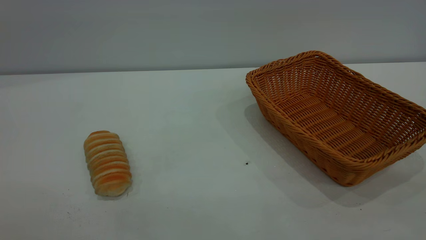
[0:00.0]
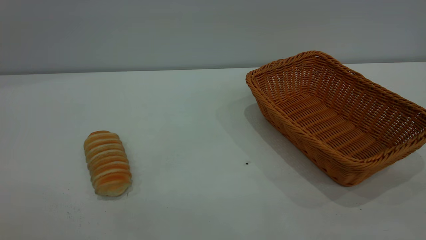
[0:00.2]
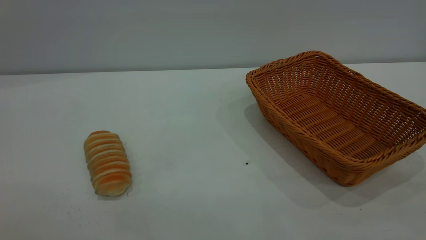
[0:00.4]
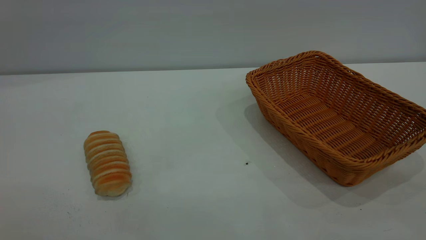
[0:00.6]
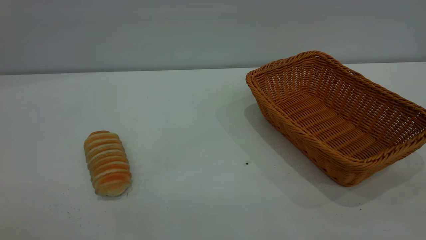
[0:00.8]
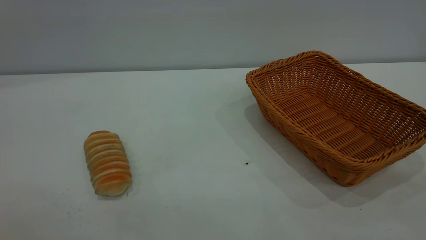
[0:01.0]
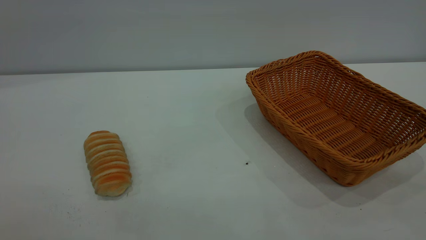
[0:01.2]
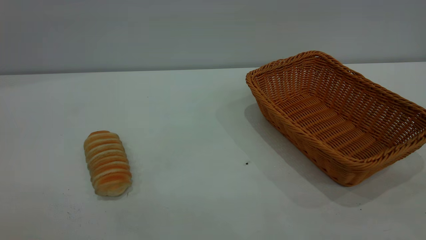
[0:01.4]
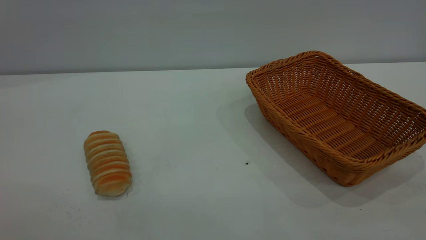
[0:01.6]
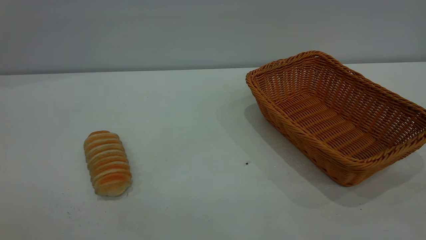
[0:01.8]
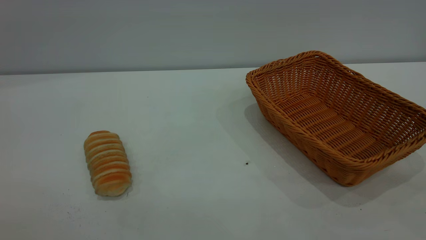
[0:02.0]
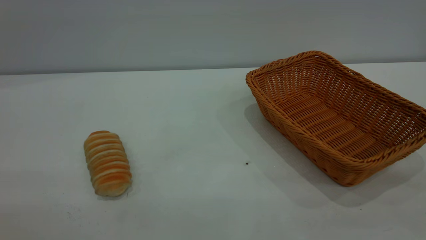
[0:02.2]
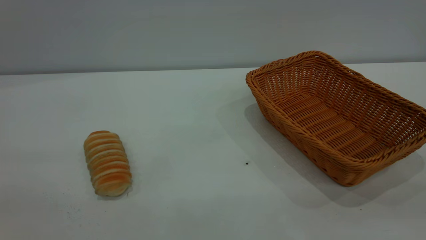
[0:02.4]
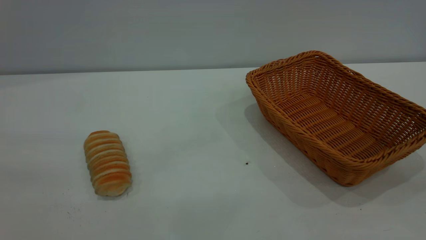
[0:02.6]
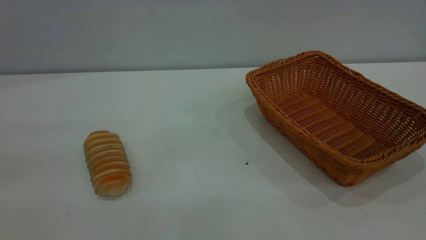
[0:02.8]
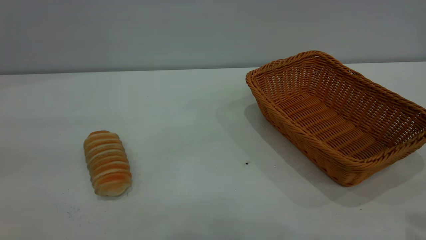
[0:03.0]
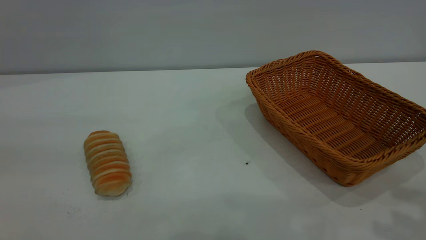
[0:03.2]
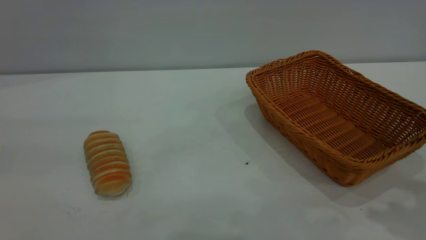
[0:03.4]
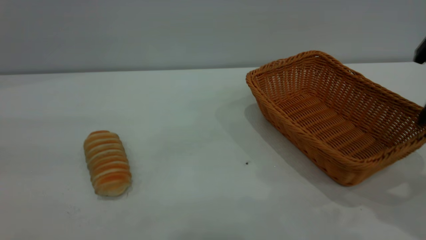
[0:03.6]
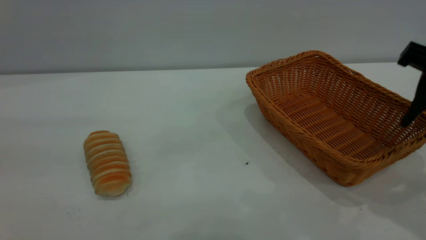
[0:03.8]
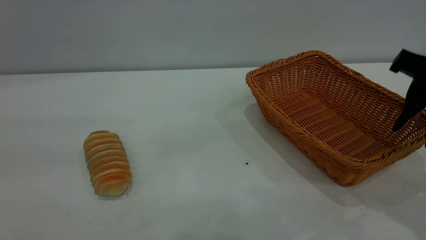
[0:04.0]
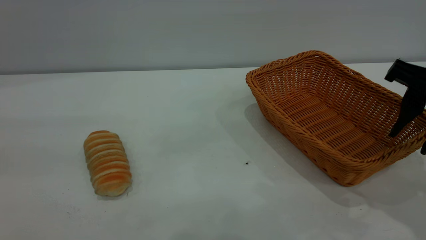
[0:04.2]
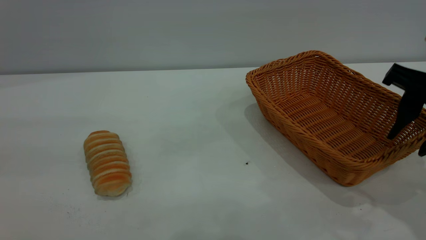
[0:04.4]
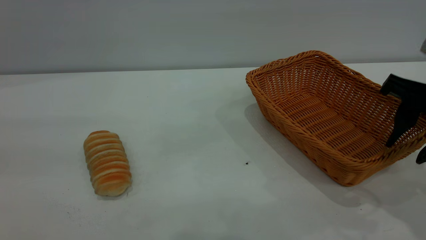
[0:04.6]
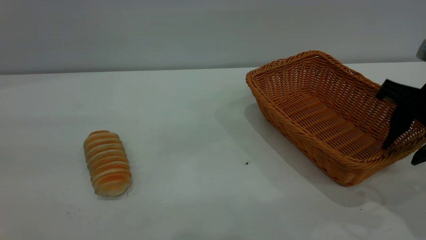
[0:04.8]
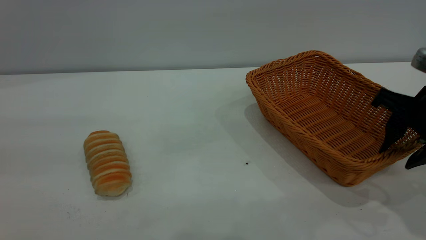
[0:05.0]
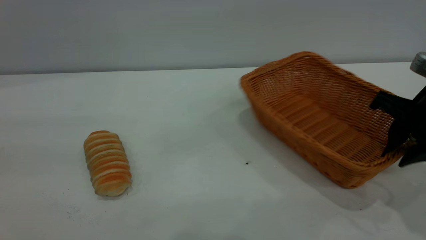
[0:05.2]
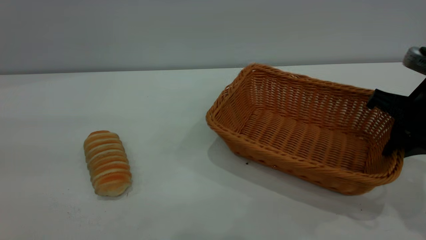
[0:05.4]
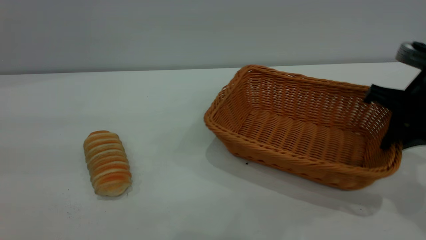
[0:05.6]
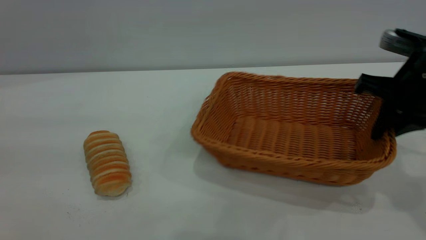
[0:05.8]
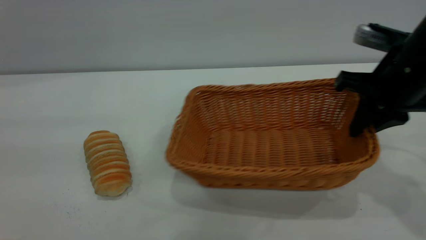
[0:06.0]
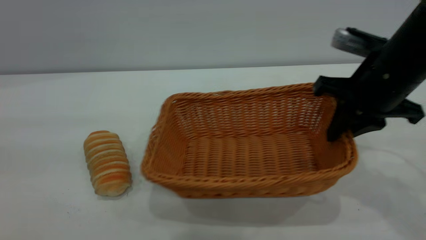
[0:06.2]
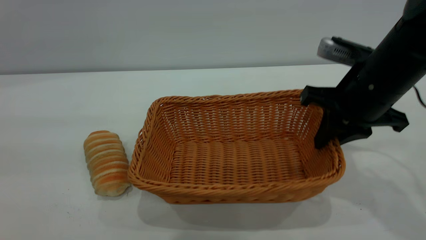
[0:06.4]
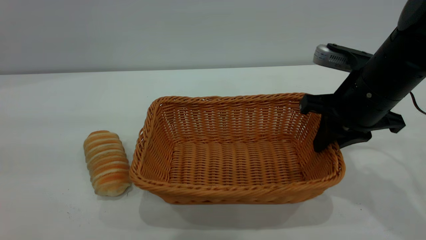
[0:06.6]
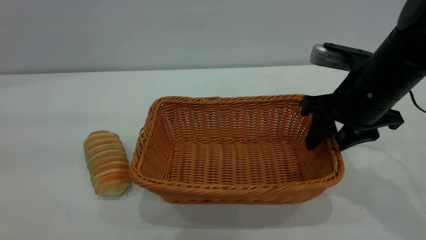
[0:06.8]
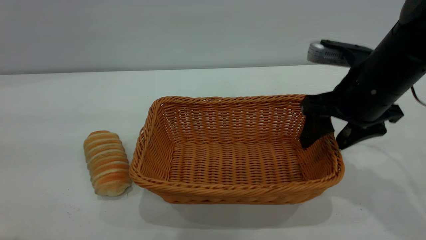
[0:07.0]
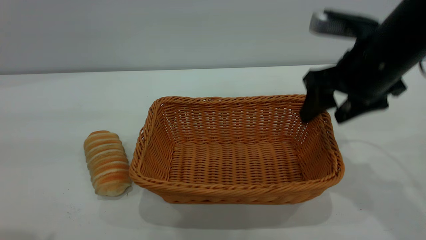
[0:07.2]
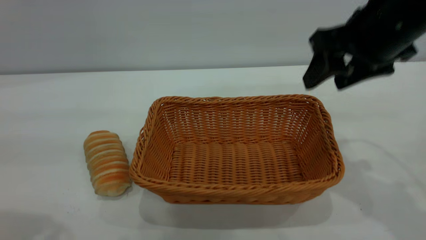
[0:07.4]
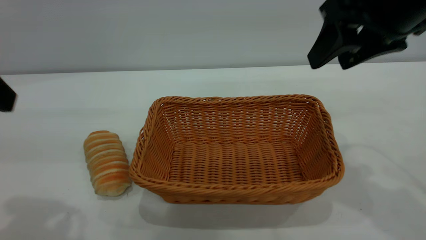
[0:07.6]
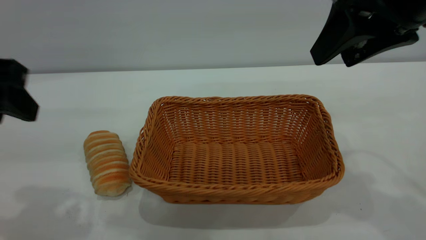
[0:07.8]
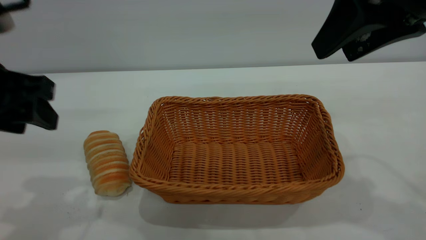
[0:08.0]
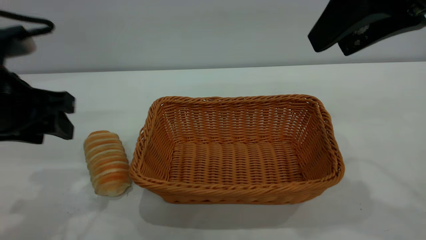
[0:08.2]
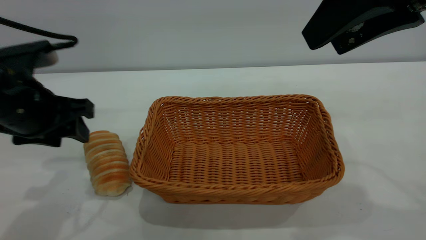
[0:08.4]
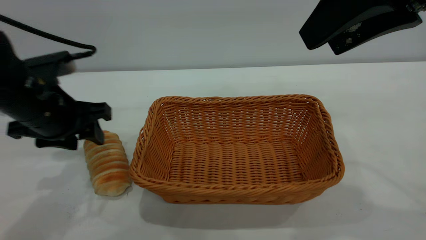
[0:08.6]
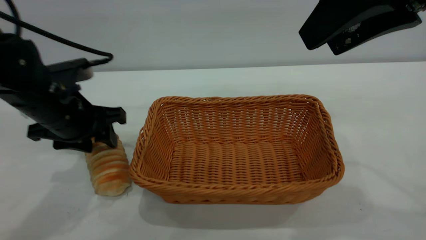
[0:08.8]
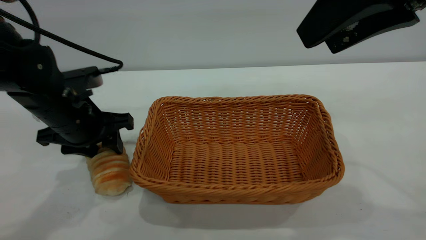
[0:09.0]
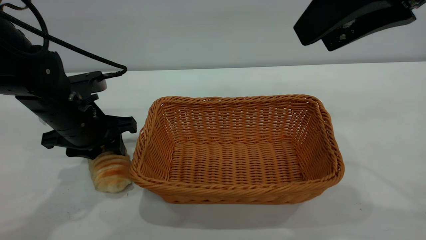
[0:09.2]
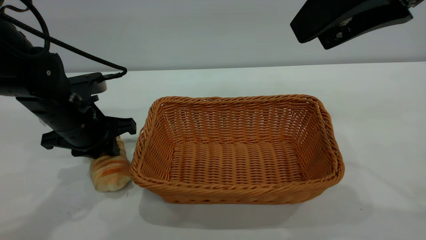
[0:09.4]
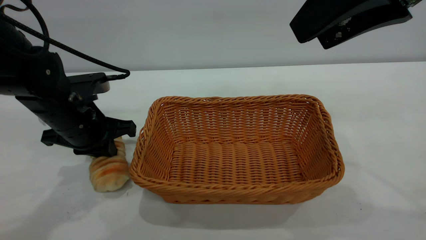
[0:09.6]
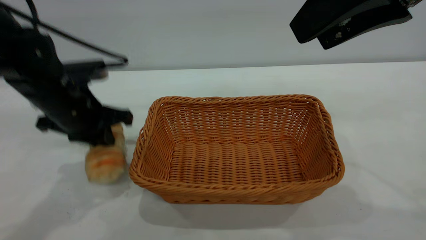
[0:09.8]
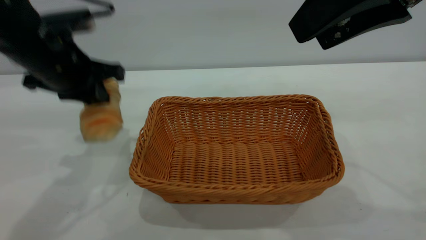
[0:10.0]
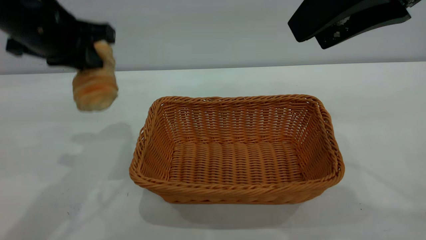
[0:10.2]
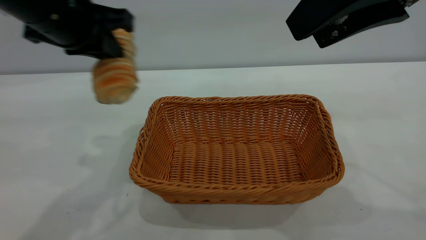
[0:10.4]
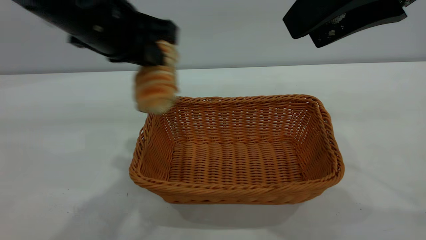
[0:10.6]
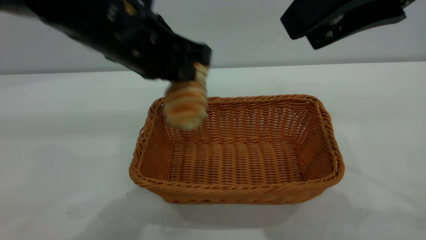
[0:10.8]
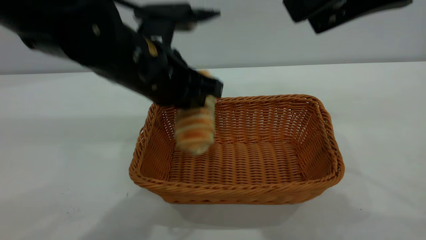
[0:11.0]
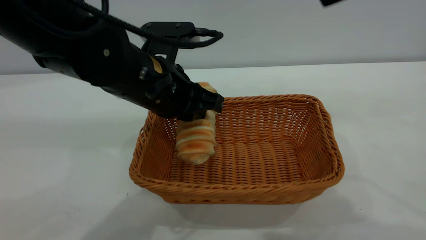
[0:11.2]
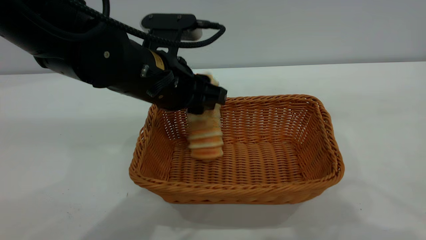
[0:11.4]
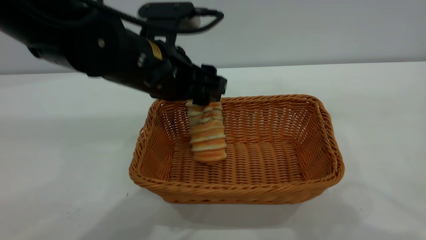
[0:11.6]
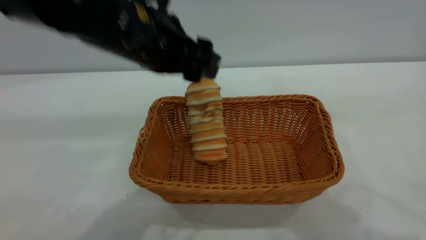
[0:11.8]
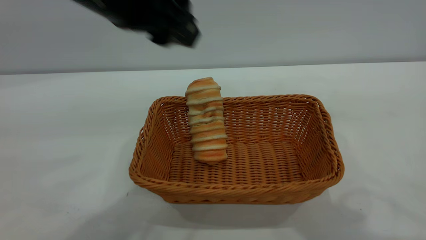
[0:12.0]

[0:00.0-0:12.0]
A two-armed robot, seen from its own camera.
Task of the whole recording: One hand grasps the yellow basket and places it in the middle of the table, while the other hand picks up the long bread and puts it into the yellow basket.
Step, 0:00.0 to 0:07.2: Move the basket to the center of view.
Step, 0:10.2 to 0:11.8: place the bread into the basket.
0:00.0 to 0:01.6: Both grippers stay put.
0:03.0 to 0:04.4: The right gripper shifts approximately 15 cm downward and forward.
0:04.4 to 0:06.0: The right gripper goes roughly 5 cm forward, and closes its fingers.
0:06.0 to 0:07.6: The left gripper heads forward and downward, covering some 10 cm. Meanwhile the right gripper is displaced upward by about 10 cm, and opens its fingers.
0:07.6 to 0:09.0: The left gripper travels downward and forward by some 20 cm. Meanwhile the right gripper shifts by approximately 5 cm.
0:09.0 to 0:10.4: The left gripper travels upward by approximately 15 cm, and closes.
0:10.4 to 0:12.0: The left gripper heads to the right, covering roughly 5 cm, moves approximately 10 cm downward and comes back, and opens. Meanwhile the right gripper travels upward and backward by roughly 10 cm.

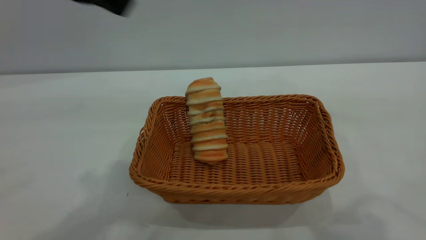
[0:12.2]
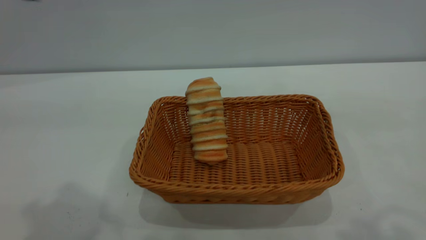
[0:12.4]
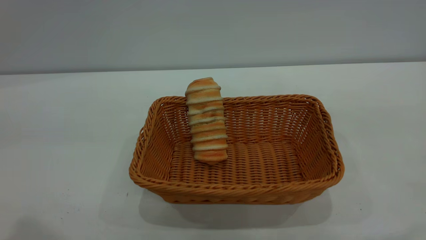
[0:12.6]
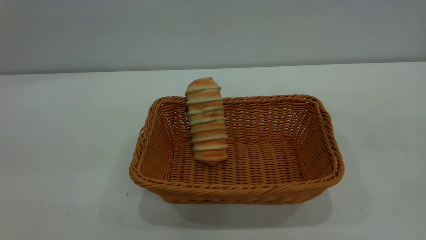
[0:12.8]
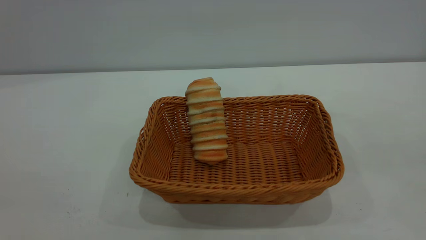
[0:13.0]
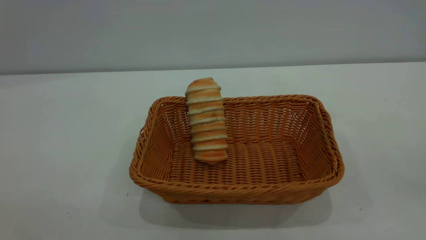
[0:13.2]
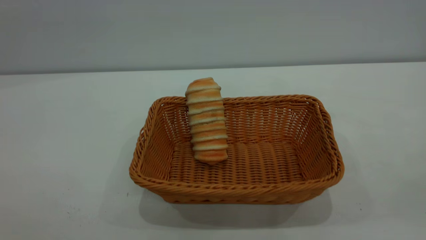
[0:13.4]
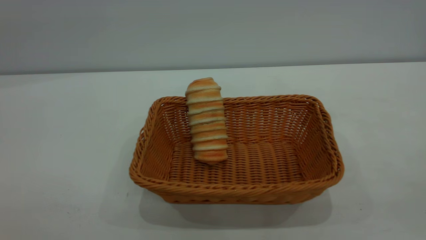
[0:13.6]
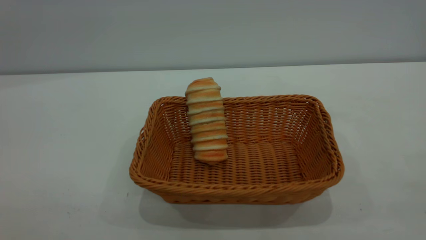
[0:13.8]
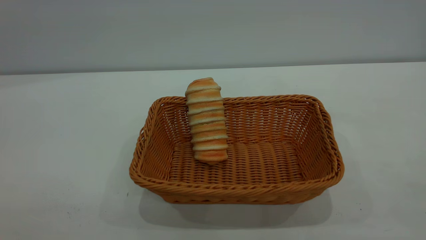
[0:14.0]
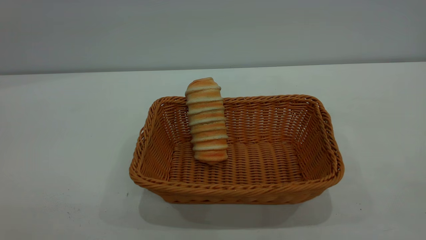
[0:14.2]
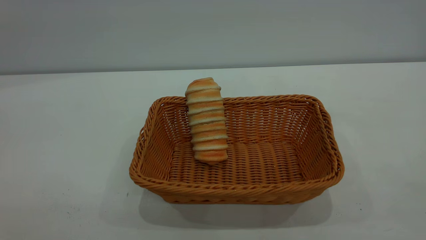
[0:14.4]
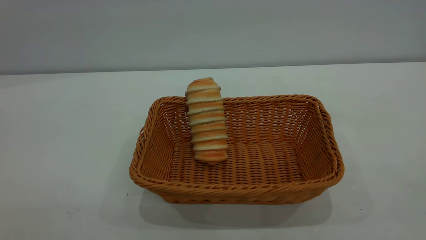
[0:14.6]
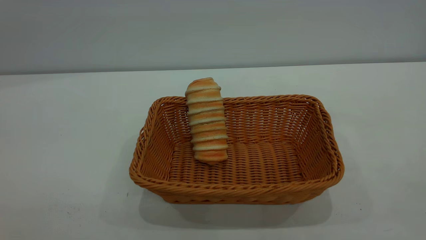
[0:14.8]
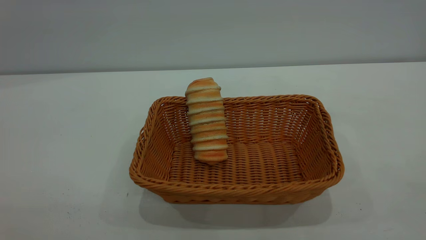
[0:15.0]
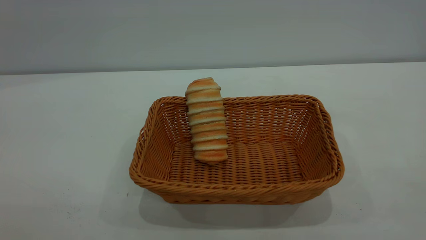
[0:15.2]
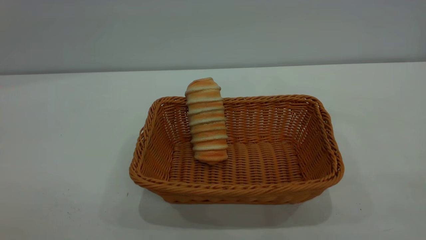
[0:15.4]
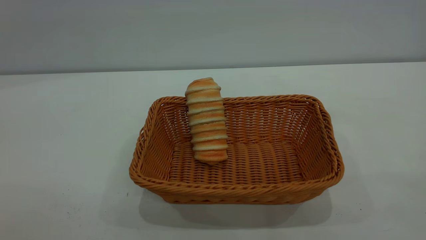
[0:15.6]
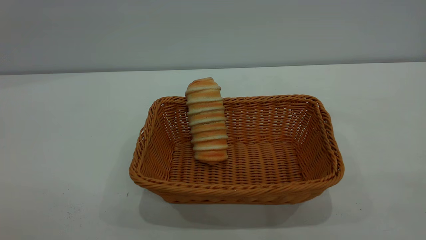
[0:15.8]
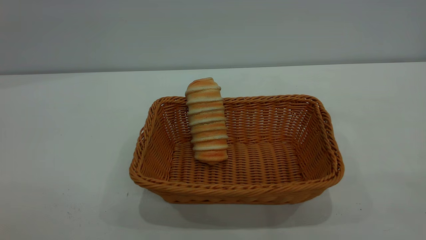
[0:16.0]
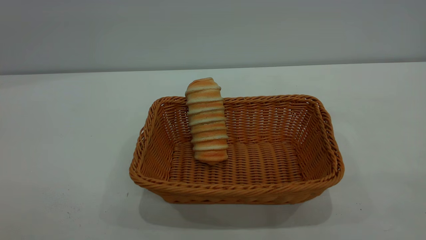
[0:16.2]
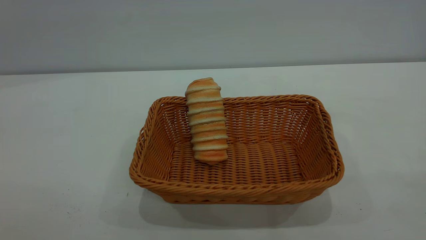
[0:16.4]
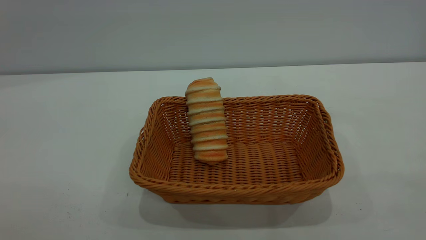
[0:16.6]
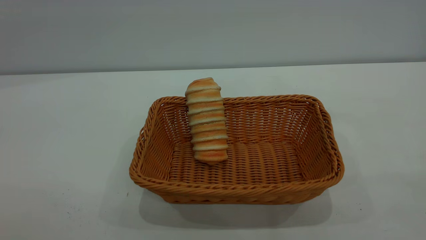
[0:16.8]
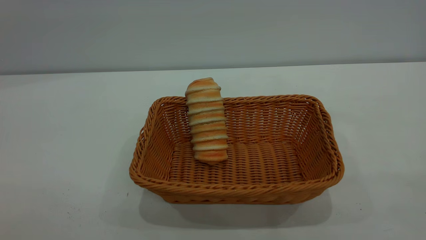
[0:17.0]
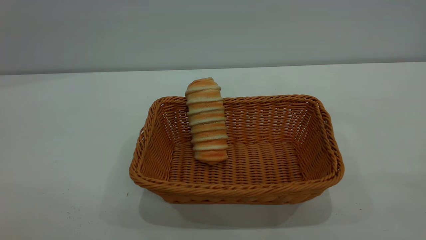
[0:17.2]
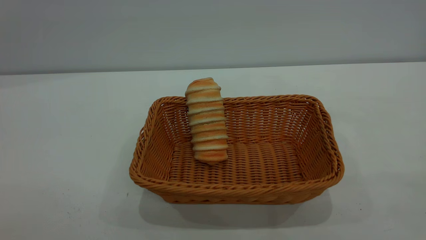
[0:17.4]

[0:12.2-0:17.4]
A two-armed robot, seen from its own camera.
Task of the whole recording: One hand grasps the yellow basket and places it in the middle of the table, while the other hand picks up the long bread and puts it into the yellow basket.
0:12.2 to 0:14.0: The left gripper shifts some 30 cm backward and to the left.
0:15.6 to 0:17.4: Neither gripper changes place.
